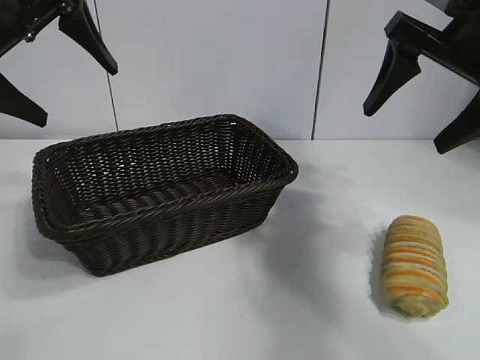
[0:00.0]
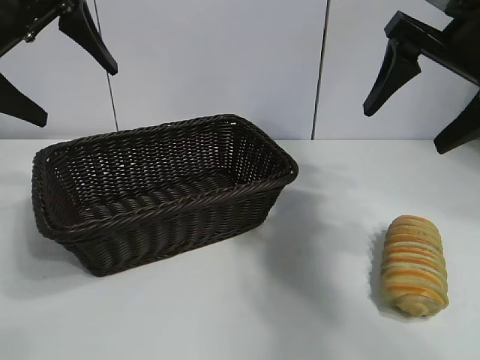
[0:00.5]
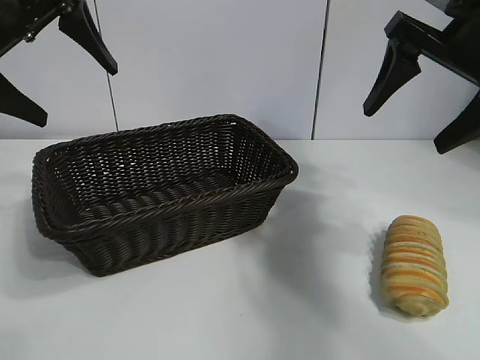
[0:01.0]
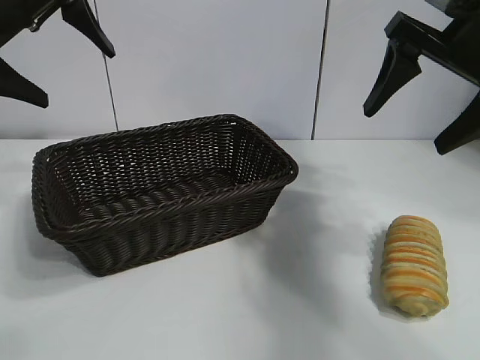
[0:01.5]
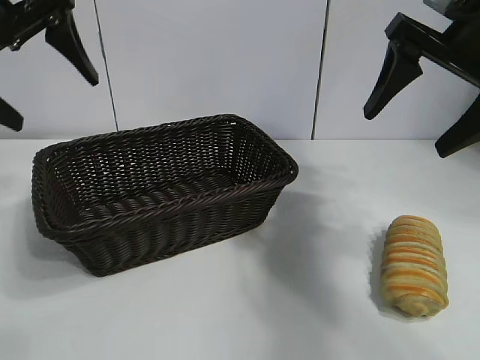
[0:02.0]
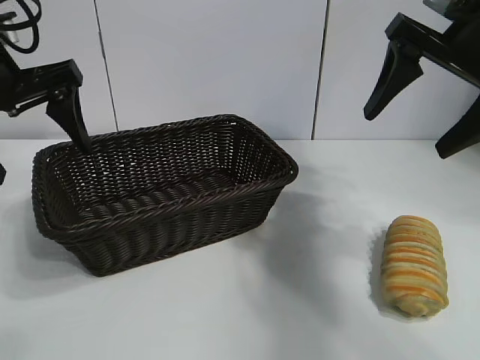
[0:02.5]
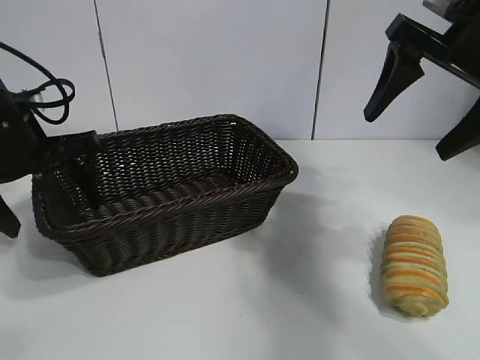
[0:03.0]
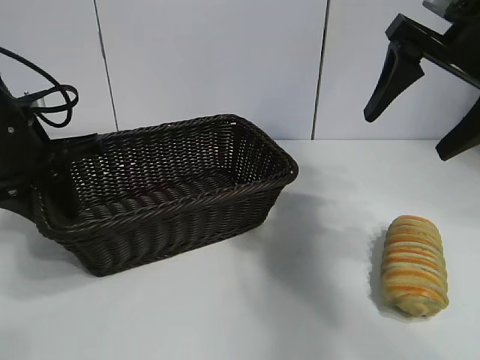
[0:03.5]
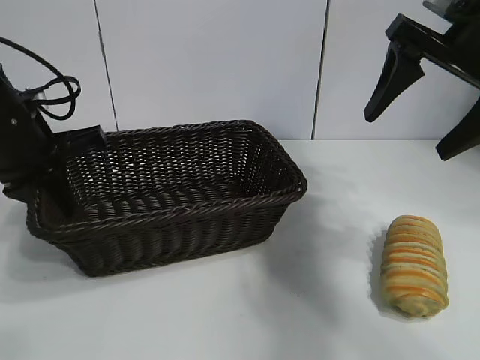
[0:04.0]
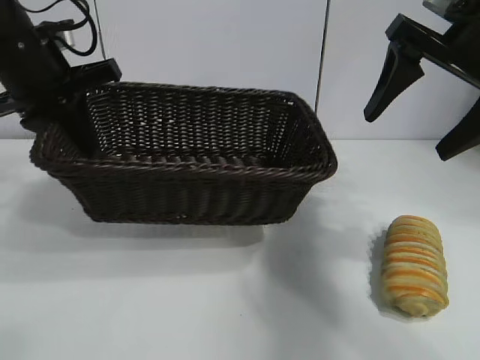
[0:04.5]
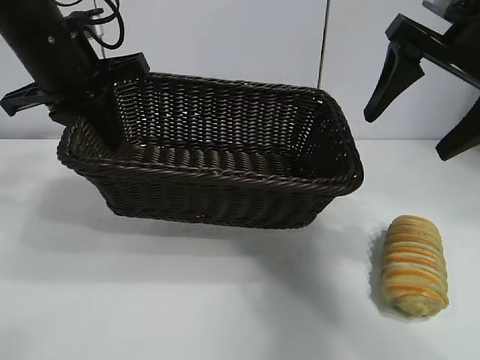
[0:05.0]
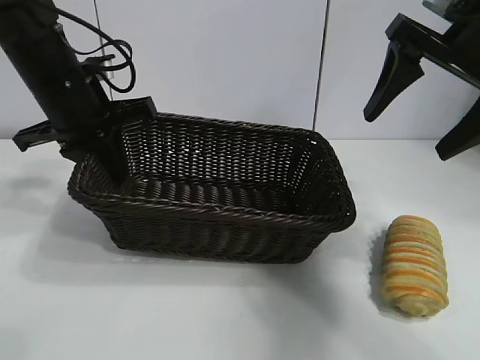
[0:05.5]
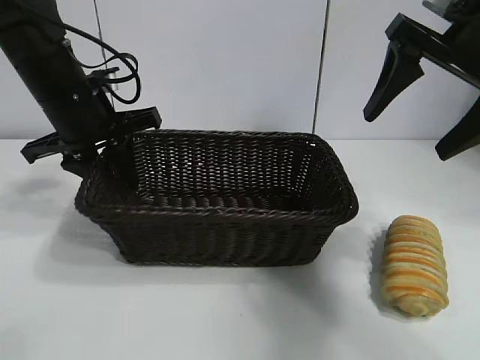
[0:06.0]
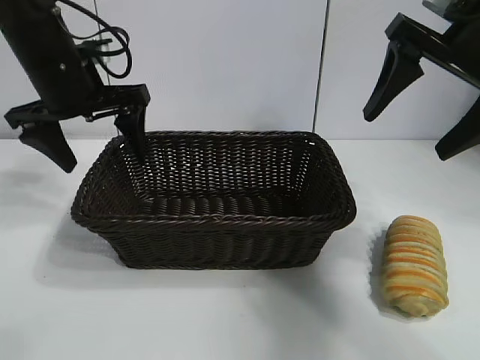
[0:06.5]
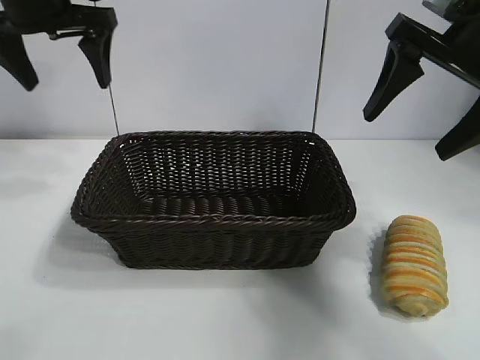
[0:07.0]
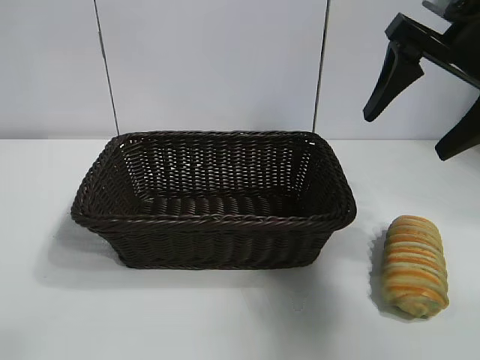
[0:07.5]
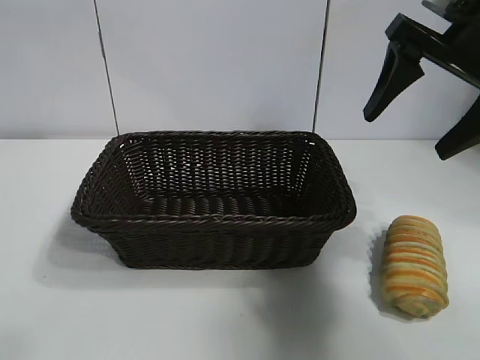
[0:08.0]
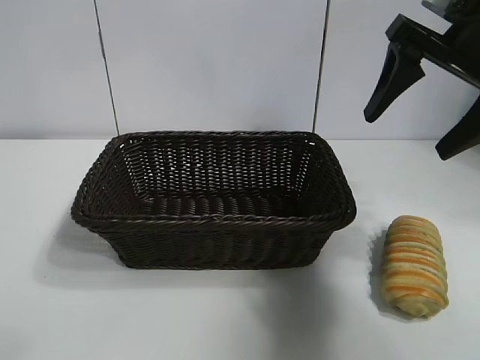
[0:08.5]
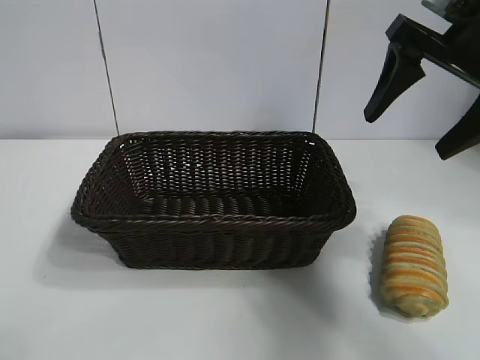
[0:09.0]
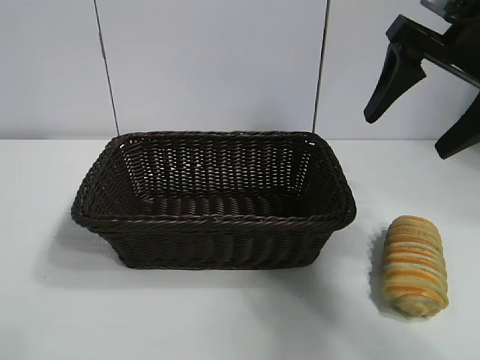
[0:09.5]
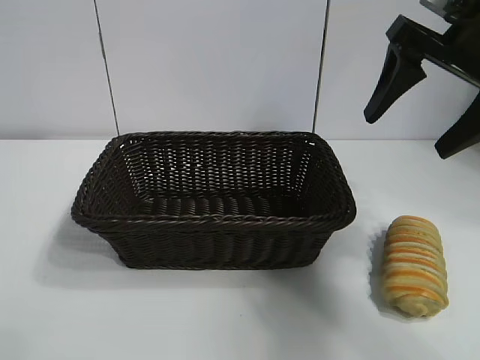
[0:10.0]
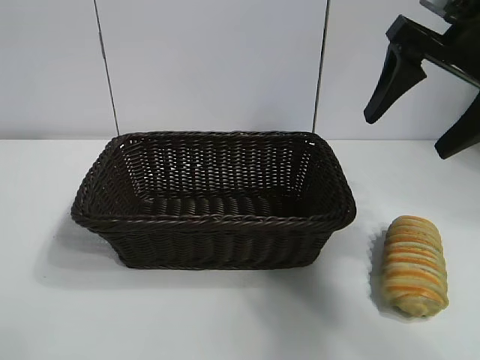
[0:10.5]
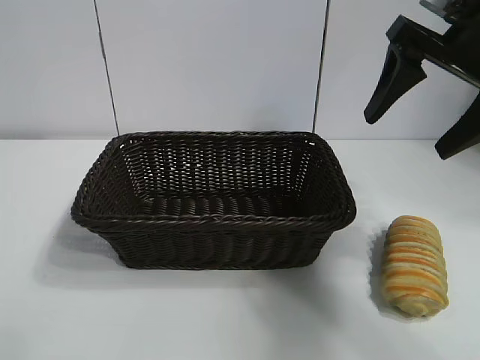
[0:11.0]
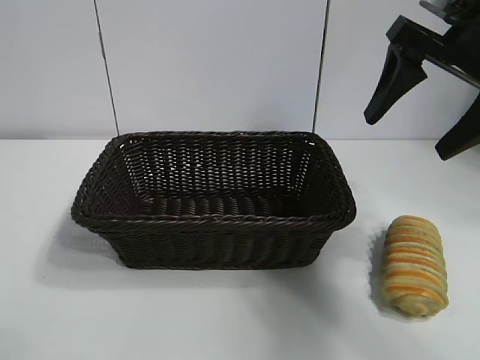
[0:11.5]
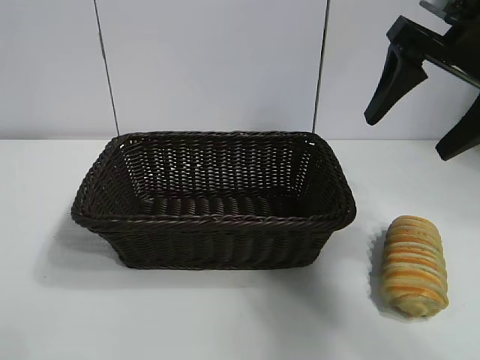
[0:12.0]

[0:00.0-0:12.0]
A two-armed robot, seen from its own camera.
Task of the whole recording: pick up the long bread and put it into the basket.
Step, 0:01.5 to 0:03.5: Grasp the basket with the left gripper.
Step, 0:04.0 to 0:06.0: Place the basket in the center of the table with the left gripper.

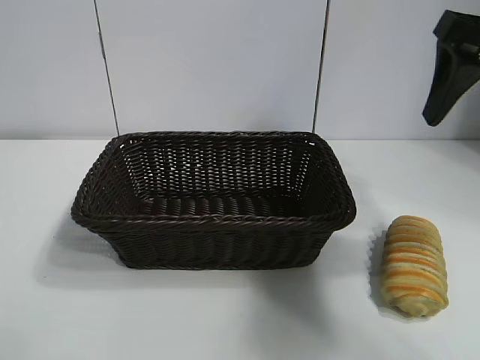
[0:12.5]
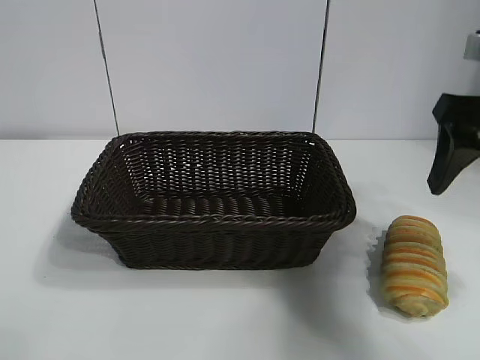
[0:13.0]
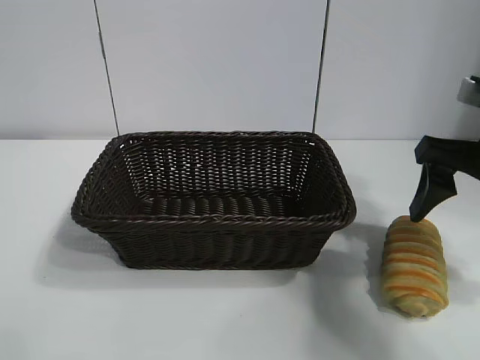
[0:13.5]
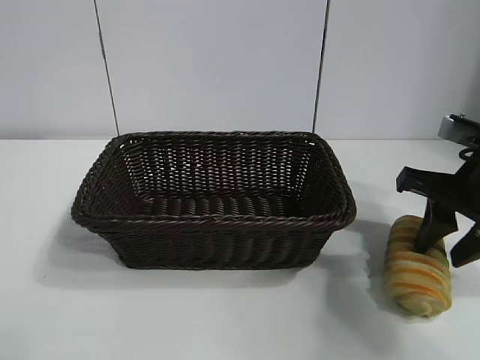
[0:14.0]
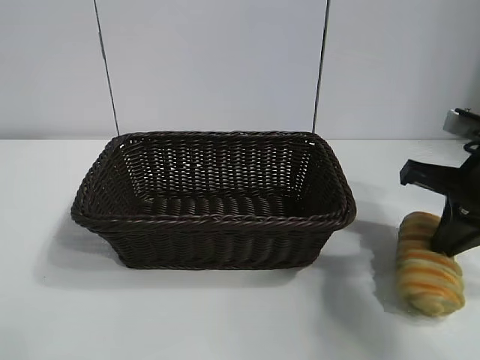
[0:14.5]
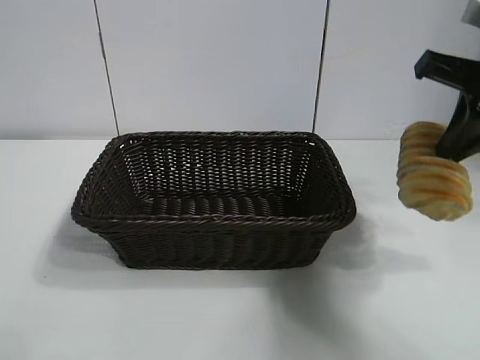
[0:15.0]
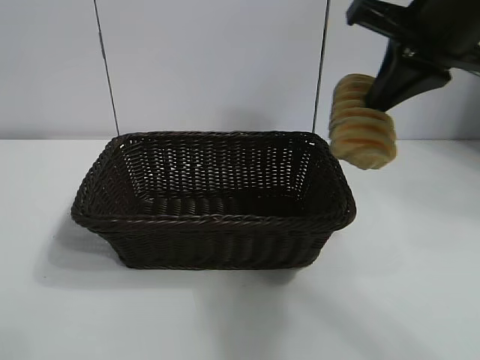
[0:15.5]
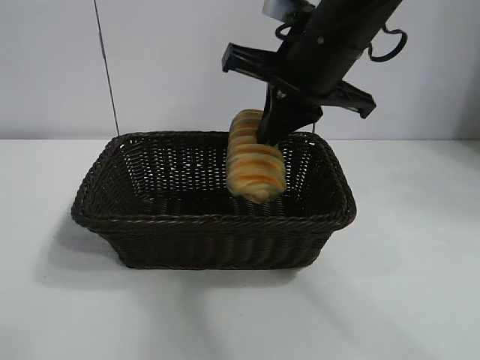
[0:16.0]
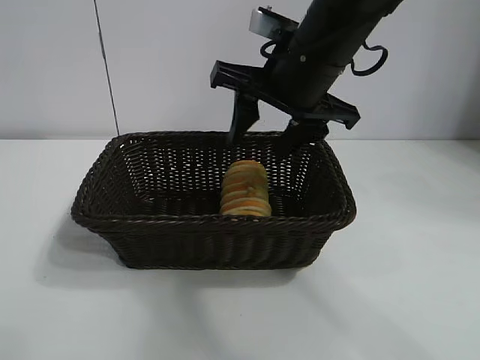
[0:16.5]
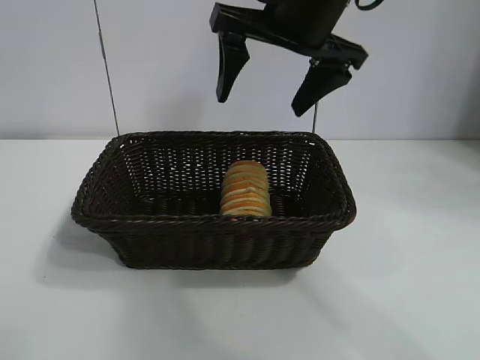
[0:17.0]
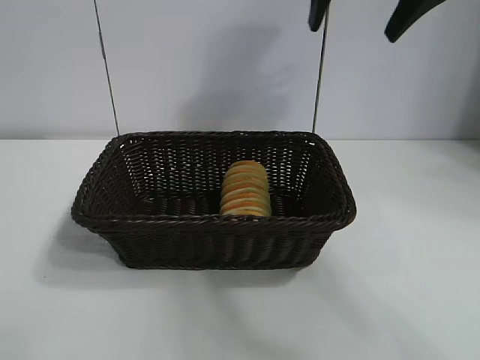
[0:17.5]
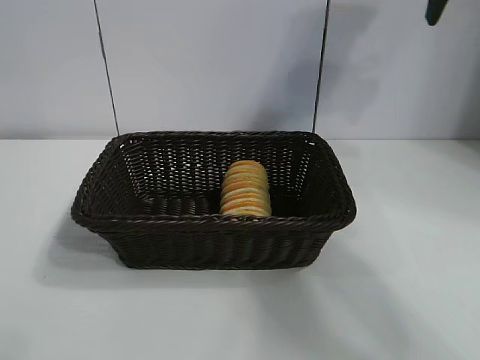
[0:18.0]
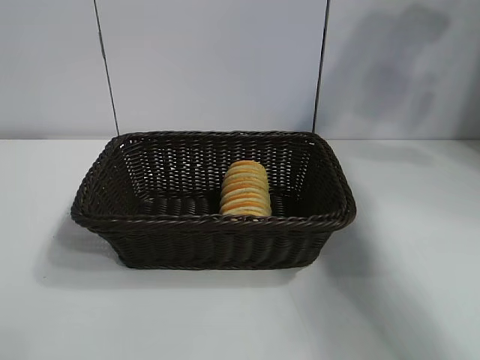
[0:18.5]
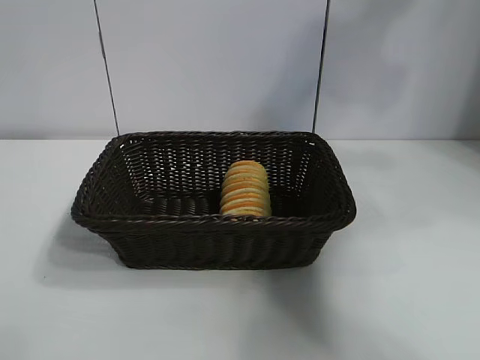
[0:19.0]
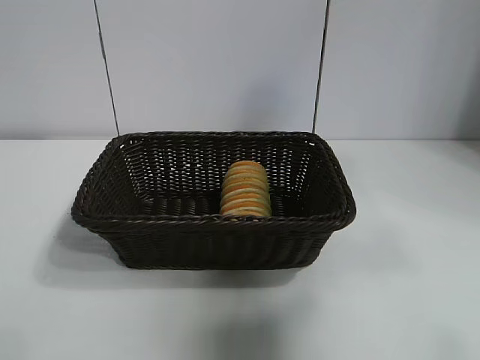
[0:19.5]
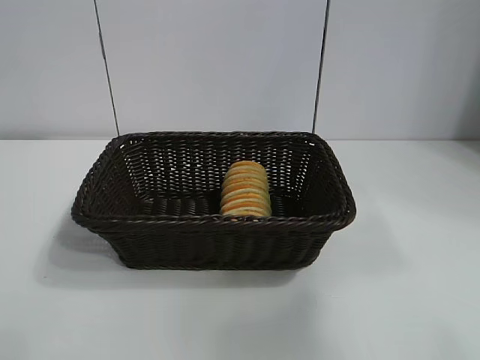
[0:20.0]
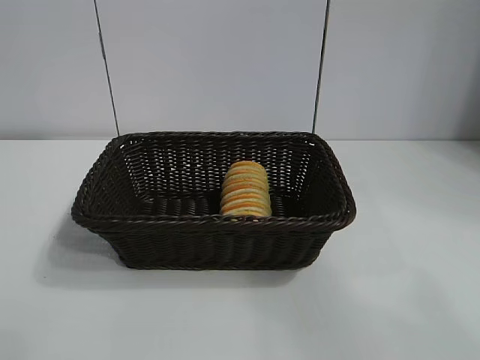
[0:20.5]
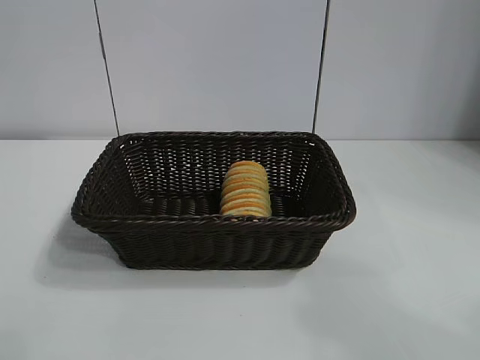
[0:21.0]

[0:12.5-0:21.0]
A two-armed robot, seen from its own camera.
Task of the whole recording: pick up the long bread and put it into the basket.
Step, 0:14.5 to 0:16.0: Place the long bread in the basket with right gripper.
